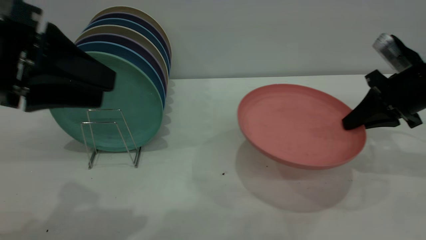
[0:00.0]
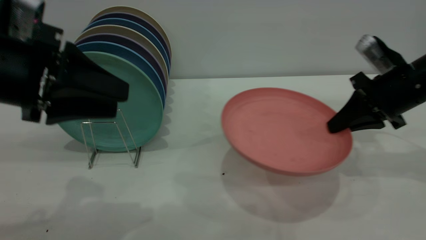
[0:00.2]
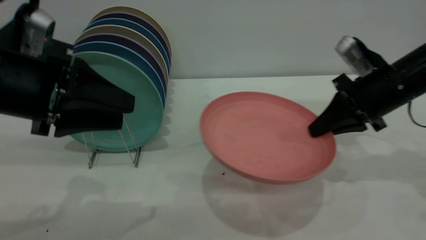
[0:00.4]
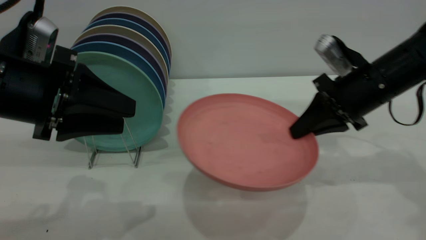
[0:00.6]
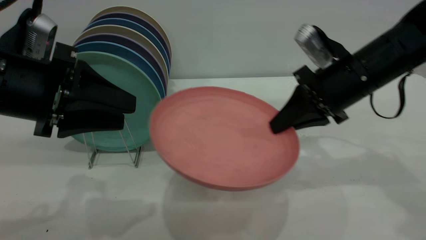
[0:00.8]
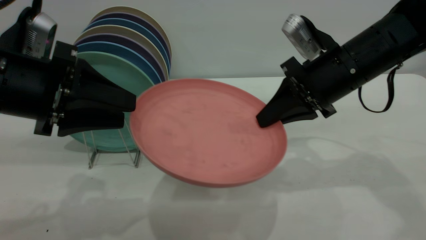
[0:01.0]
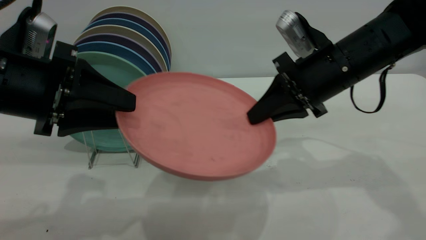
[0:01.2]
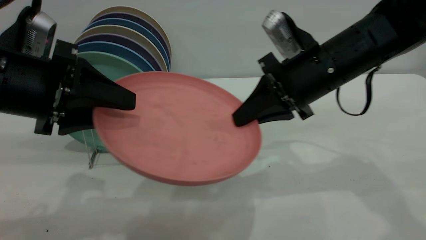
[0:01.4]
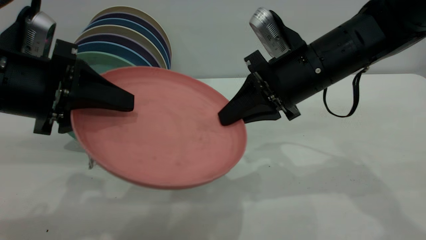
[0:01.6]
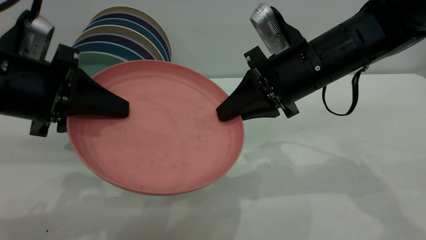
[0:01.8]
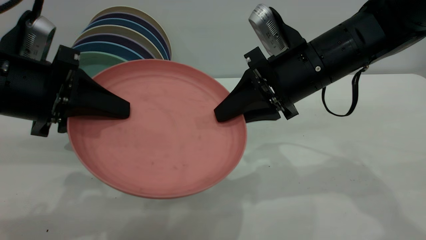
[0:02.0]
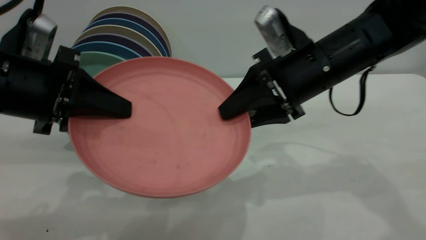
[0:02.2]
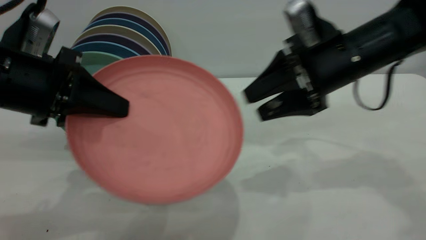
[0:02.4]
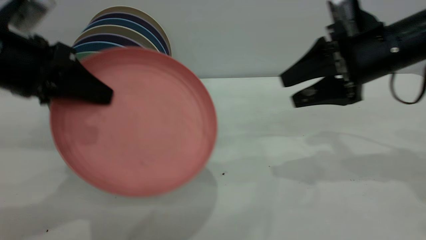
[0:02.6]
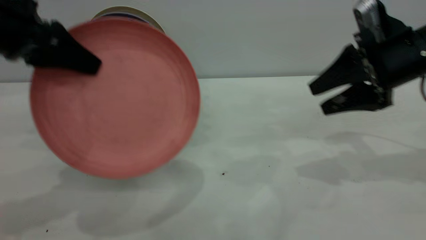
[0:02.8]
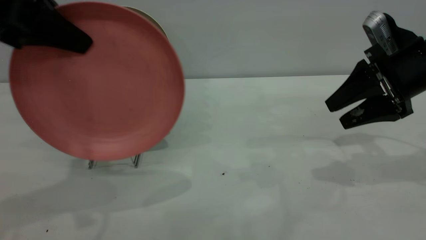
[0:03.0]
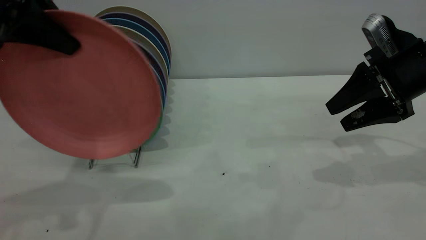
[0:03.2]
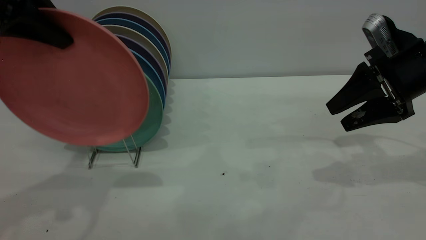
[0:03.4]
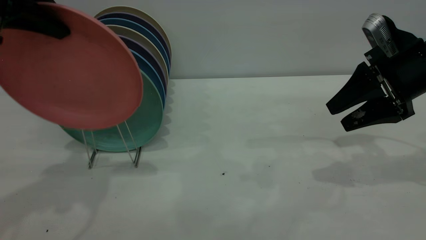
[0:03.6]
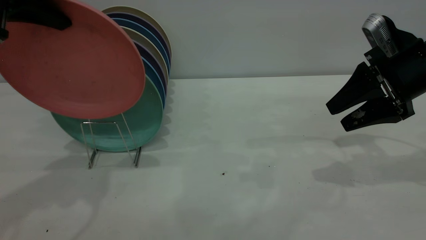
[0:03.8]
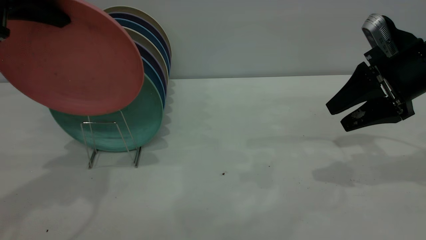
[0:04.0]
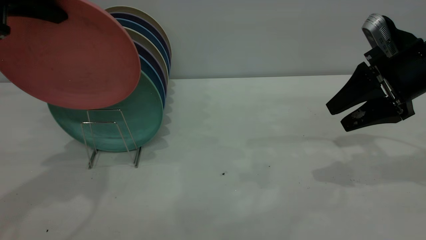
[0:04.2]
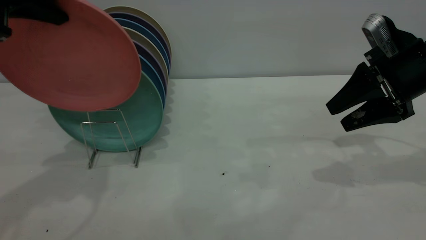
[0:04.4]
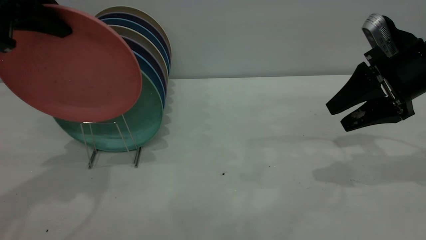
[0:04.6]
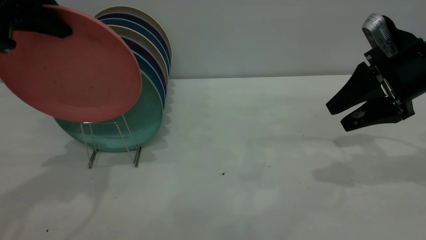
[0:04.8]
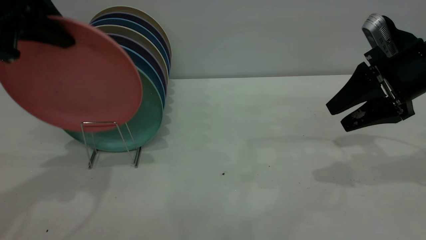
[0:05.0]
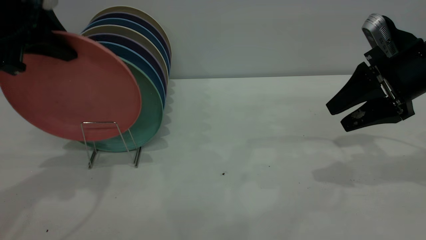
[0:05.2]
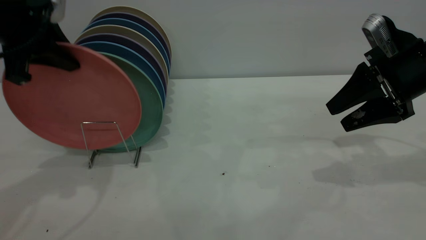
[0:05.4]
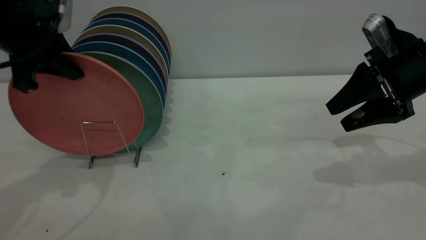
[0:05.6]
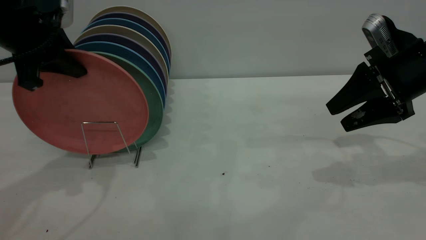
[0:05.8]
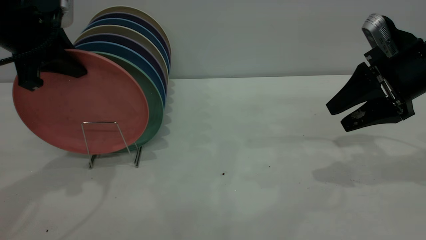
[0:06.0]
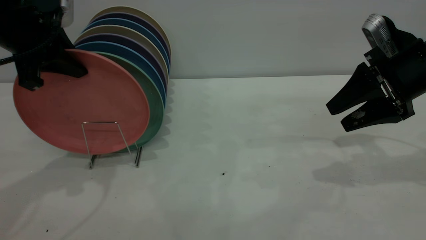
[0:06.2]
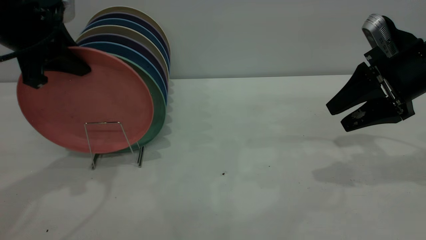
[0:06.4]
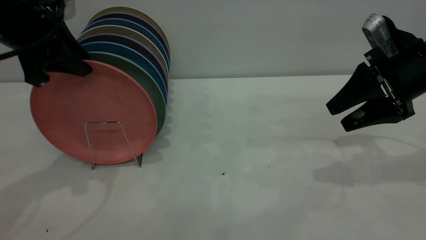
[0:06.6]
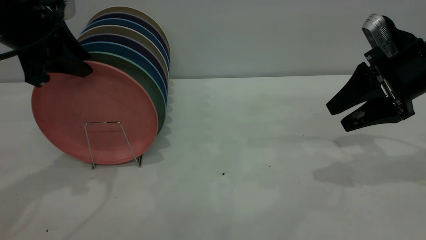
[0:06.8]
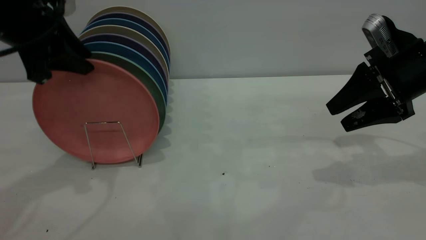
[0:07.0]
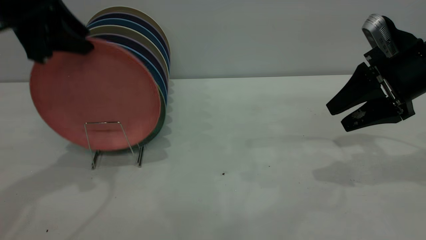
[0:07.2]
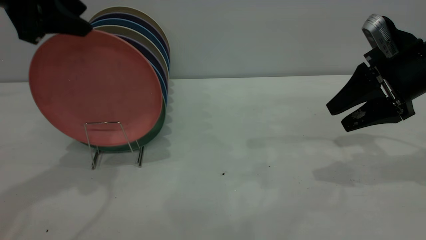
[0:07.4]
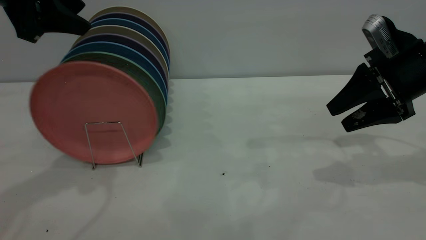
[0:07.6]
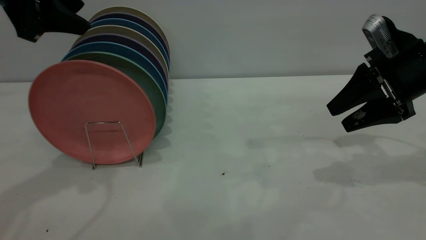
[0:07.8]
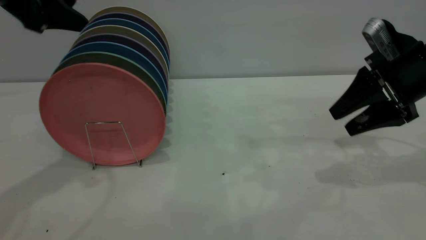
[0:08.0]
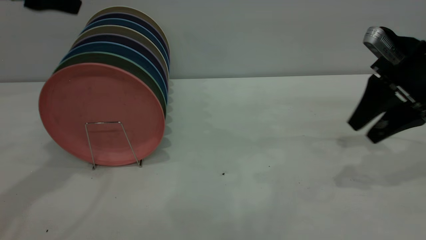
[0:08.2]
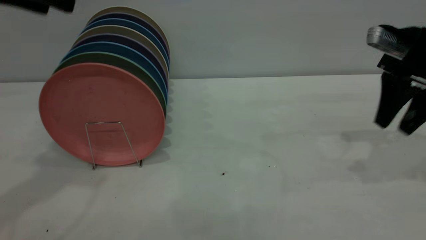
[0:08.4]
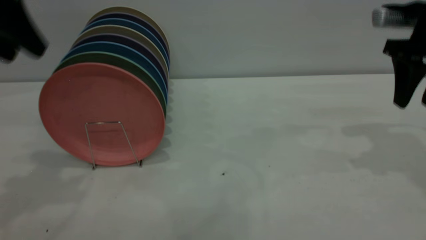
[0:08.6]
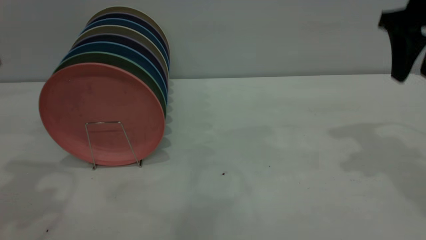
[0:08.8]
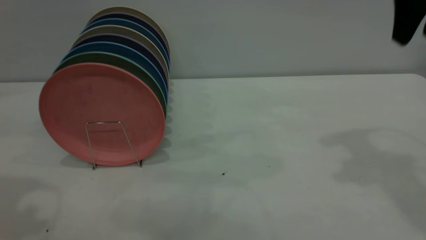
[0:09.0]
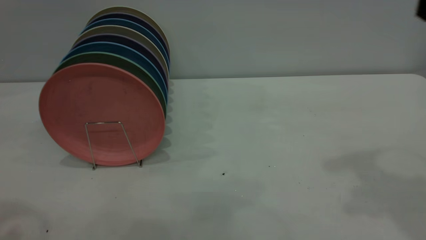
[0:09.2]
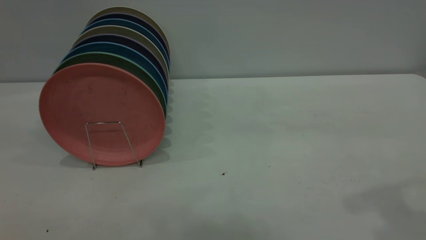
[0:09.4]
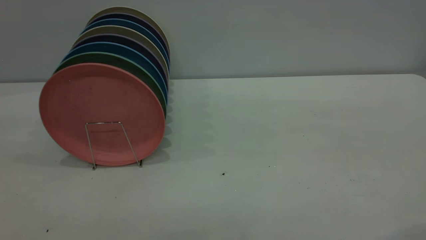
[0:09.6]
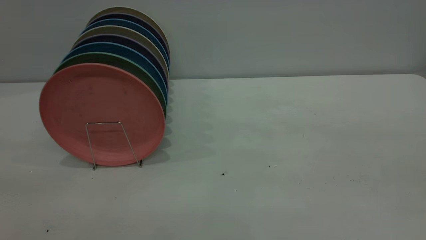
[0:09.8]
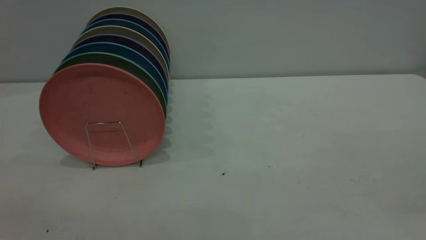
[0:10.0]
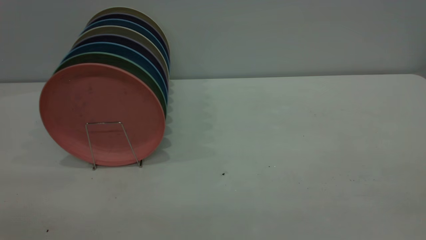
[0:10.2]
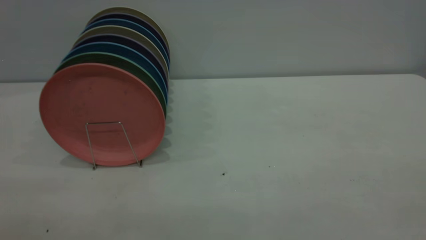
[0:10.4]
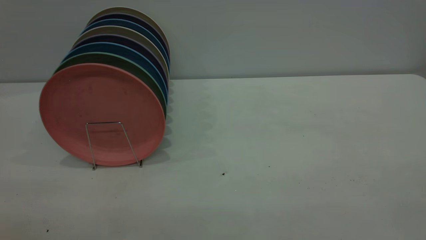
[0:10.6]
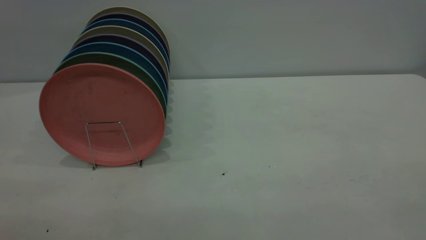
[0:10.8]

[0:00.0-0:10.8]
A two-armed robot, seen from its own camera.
Task of the whole recording: the right gripper grasp the pink plate, the right gripper pass the pink plate to the left gripper, and the left gripper place the pink plate on the plate rack.
Step, 0:00.2 to 0:03.6: Pass the plate from the right gripper to the left gripper.
Step, 0:03.8 to 0:08.2: Place the plate on the shelf.
0:00.0 to 0:01.6: The right gripper shifts roughly 20 cm to the left.
0:01.6 to 0:03.0: The left gripper shifts roughly 10 cm upward, and closes, while the right gripper heads to the right, covering roughly 15 cm, and opens its fingers.
0:04.6 to 0:06.2: The left gripper goes some 5 cm downward.
0:06.2 to 0:07.8: The left gripper travels upward by roughly 5 cm, and opens up.
0:07.8 to 0:09.2: The right gripper travels upward and backward by about 25 cm. The left gripper travels backward and upward by approximately 20 cm.
